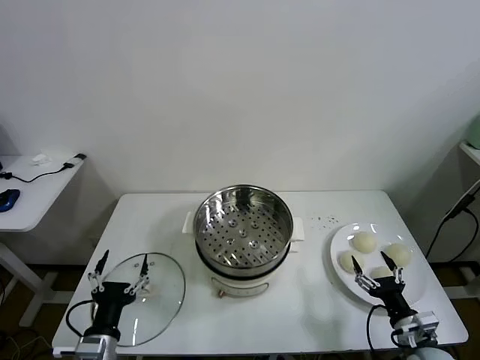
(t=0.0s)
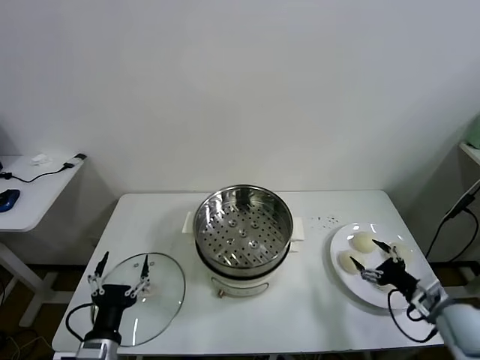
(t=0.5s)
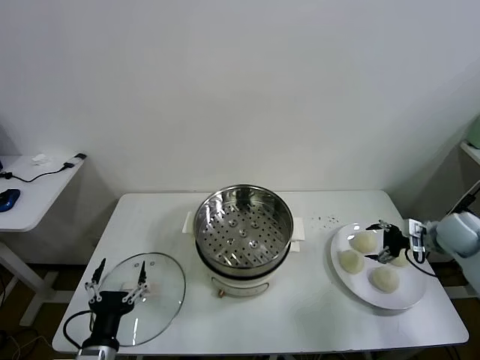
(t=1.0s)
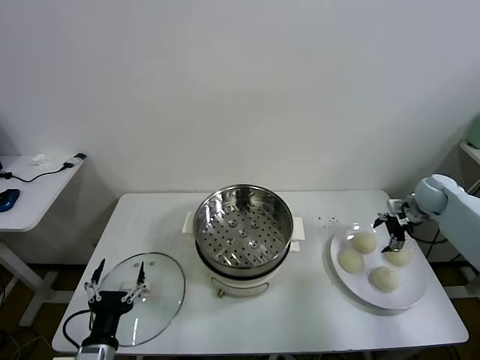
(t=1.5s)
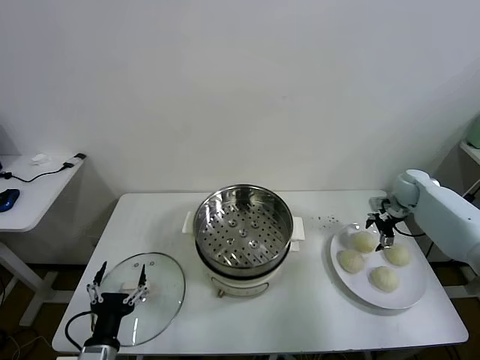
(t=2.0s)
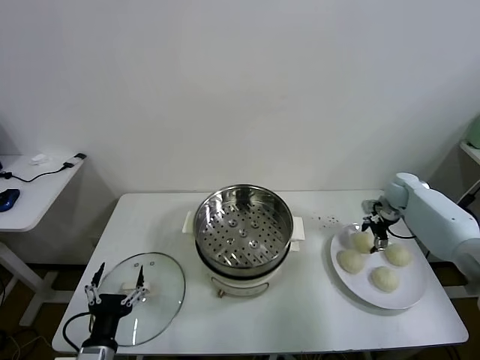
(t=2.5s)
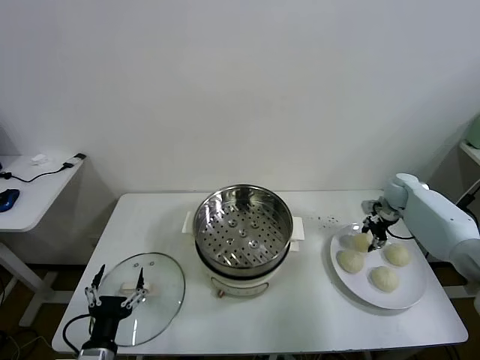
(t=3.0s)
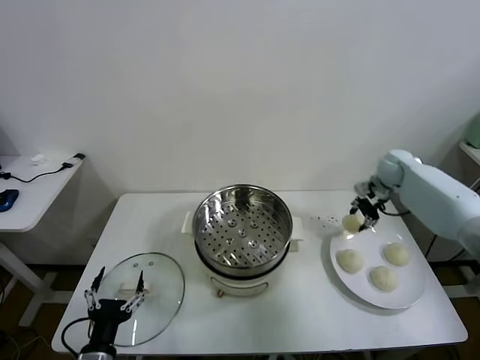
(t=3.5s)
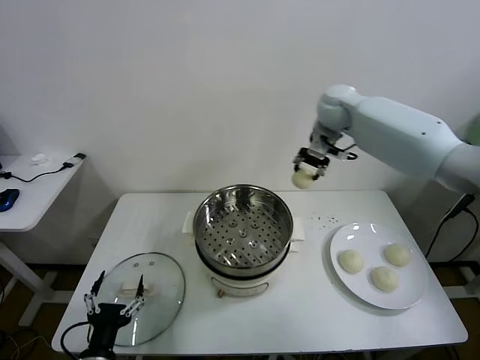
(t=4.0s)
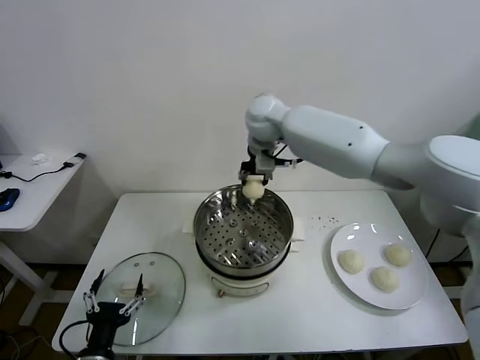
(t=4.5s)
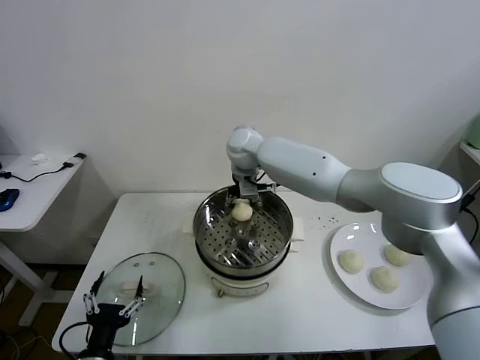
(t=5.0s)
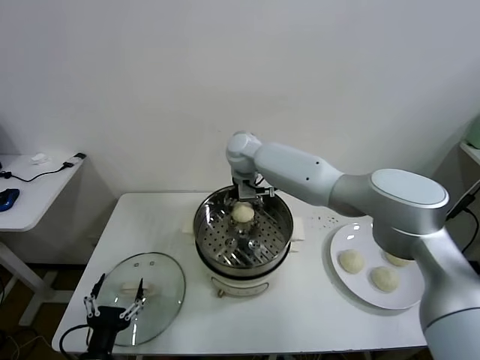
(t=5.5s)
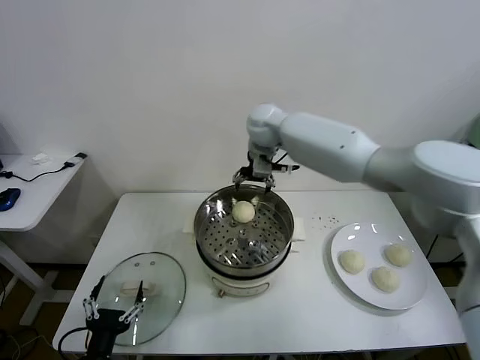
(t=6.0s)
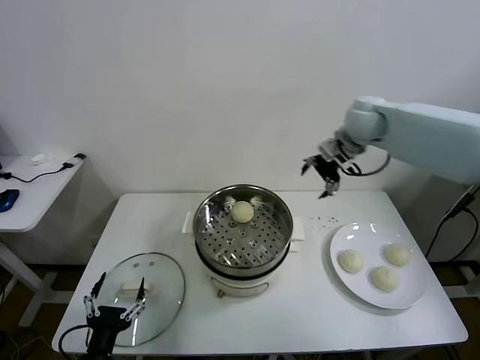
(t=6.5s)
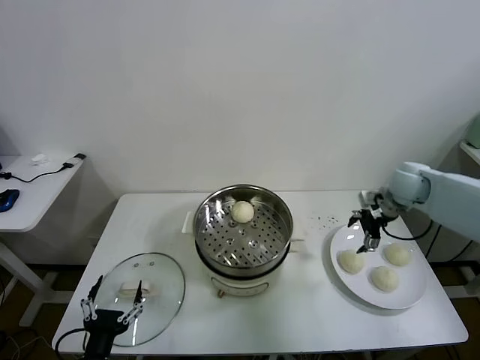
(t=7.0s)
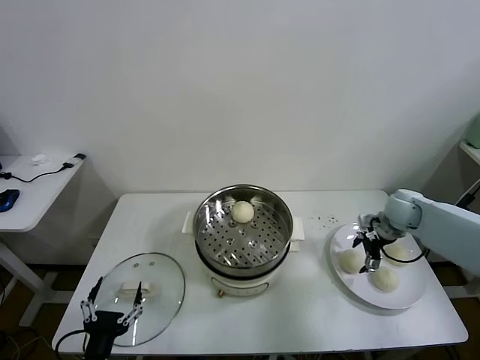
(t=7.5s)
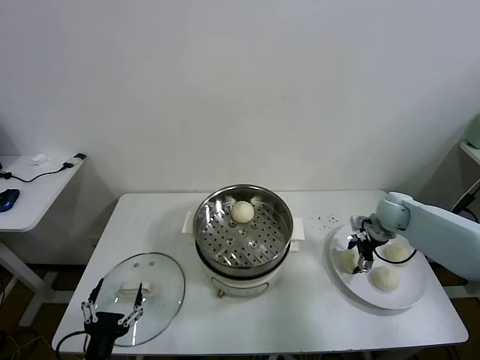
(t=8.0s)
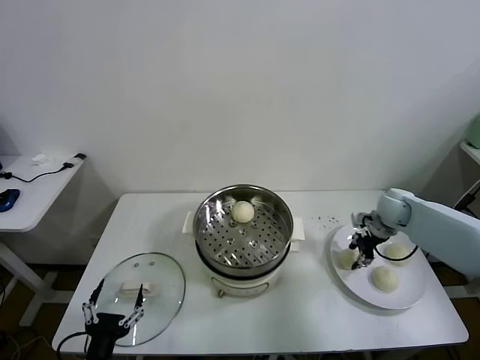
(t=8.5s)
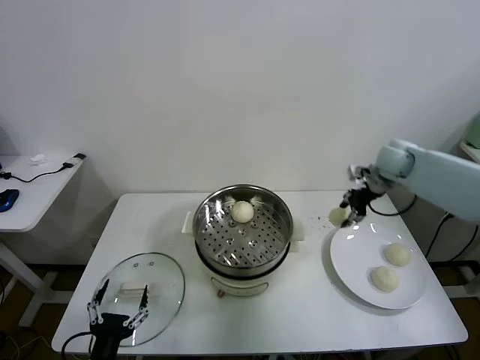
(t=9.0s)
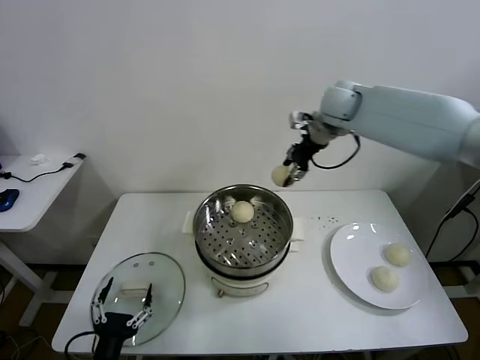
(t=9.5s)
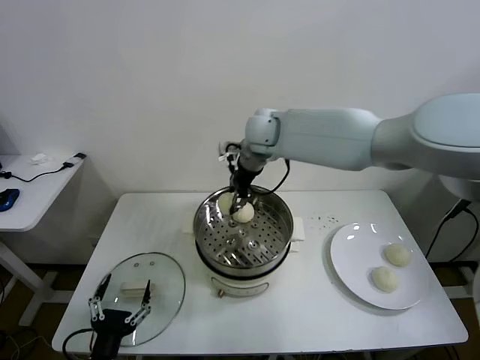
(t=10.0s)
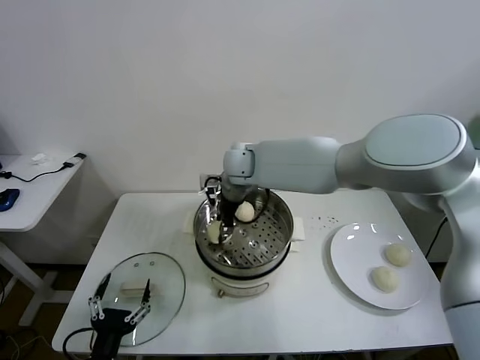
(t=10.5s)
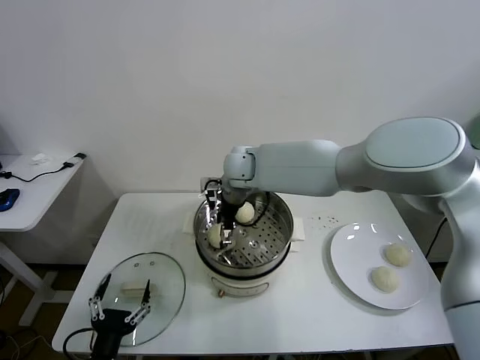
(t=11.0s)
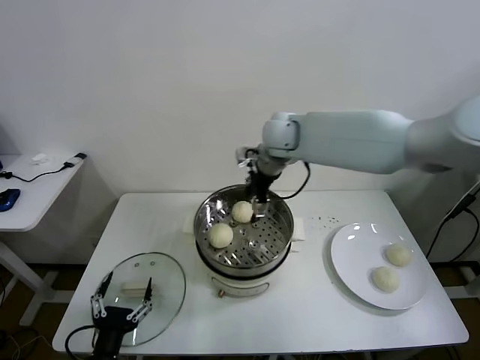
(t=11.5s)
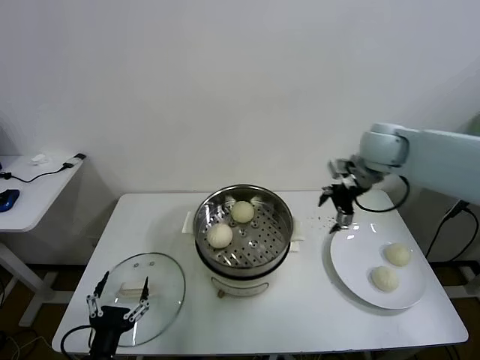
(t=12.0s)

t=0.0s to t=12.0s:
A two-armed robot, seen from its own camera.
Task of the whole recording: take steamed baozi put them in steamer.
Step, t=0.0s to t=2.5s: Grasp the baozi in the plate with right gripper.
Step, t=3.0s to t=5.5s: Place the baozi on the steamer with right gripper.
Step, t=6.0s to t=8.0s: Grasp the baozi in the plate with right gripper.
Step, t=8.5s to t=11.0s: Place the baozi on the steamer with right gripper.
t=2.0s to t=4.0s: The right gripper is displaced to the left and upward by some 35 cm, and closes up.
t=4.0s to t=6.0s: The right gripper goes roughly 15 cm to the left, and opens up.
t=6.0s to t=8.0s: The right gripper is displaced to the right and downward by some 40 cm.
t=8.0s to t=10.0s: The right gripper travels to the left and upward by about 40 cm, and closes up.
t=10.0s to t=12.0s: The right gripper heads to the right, covering about 25 cm, and opens up.

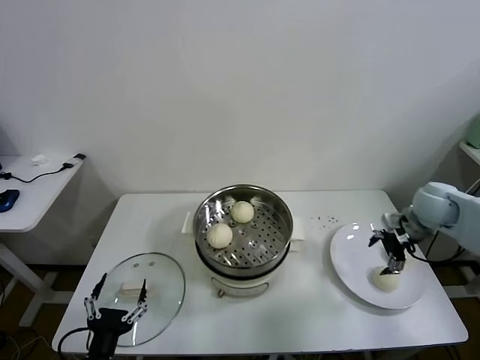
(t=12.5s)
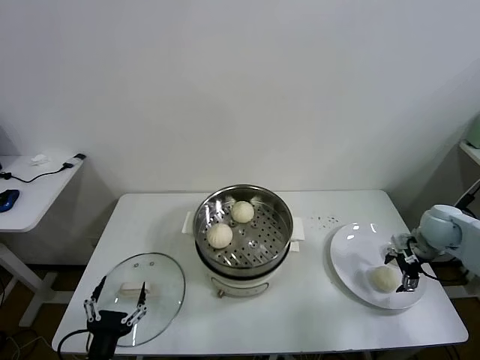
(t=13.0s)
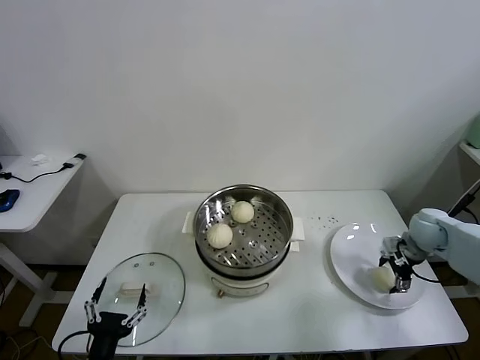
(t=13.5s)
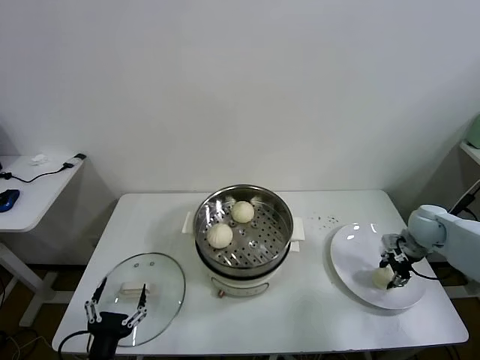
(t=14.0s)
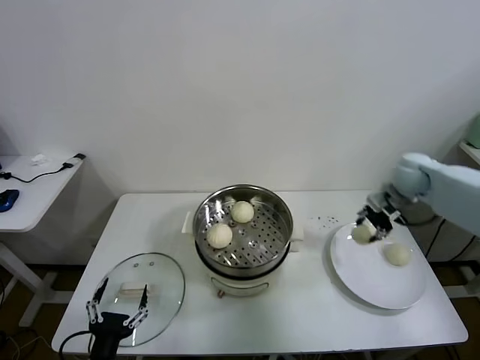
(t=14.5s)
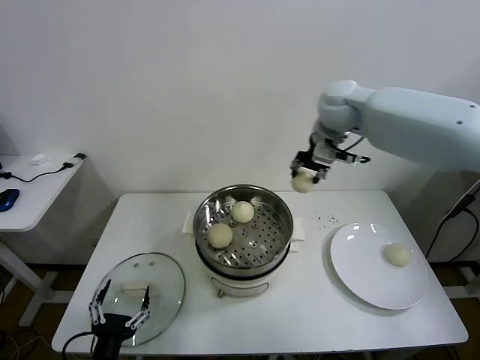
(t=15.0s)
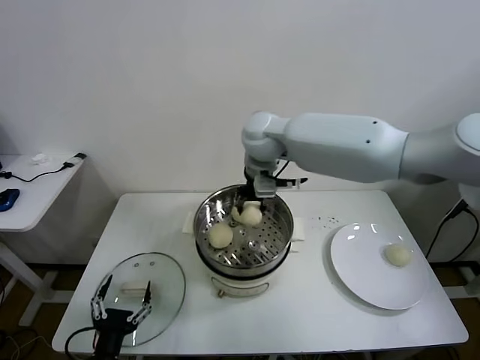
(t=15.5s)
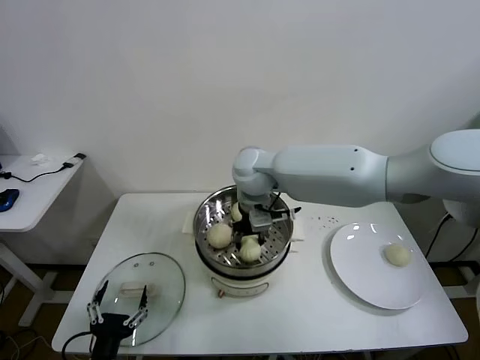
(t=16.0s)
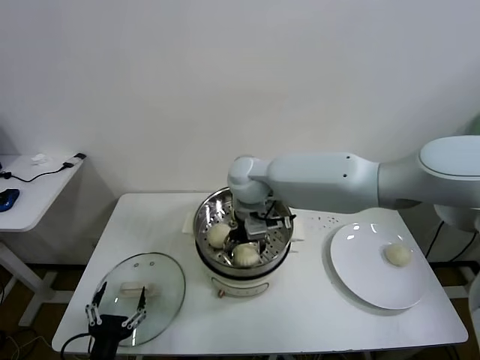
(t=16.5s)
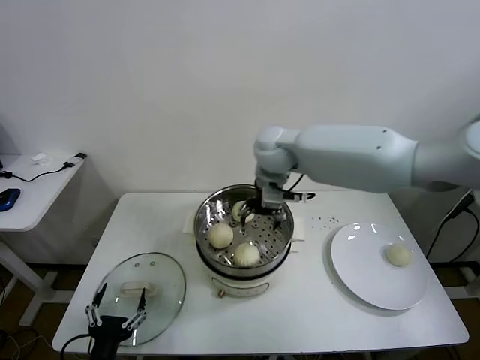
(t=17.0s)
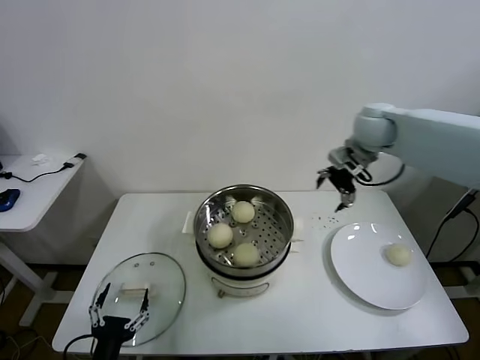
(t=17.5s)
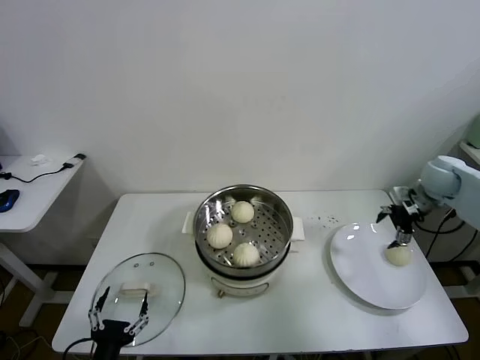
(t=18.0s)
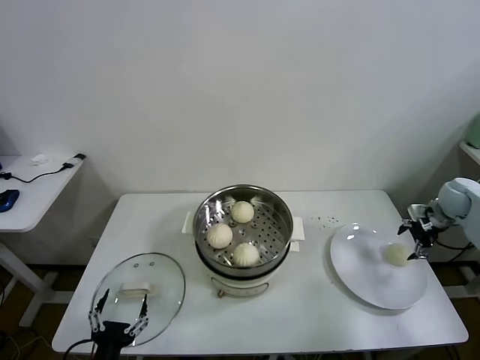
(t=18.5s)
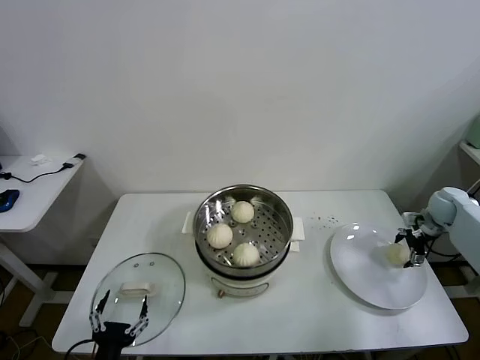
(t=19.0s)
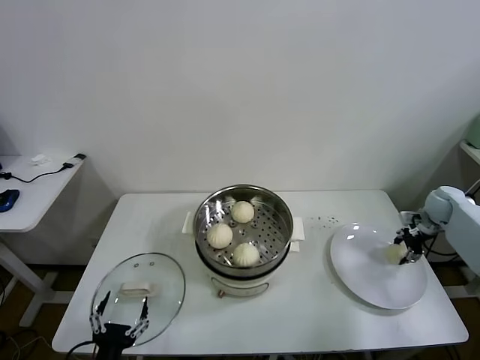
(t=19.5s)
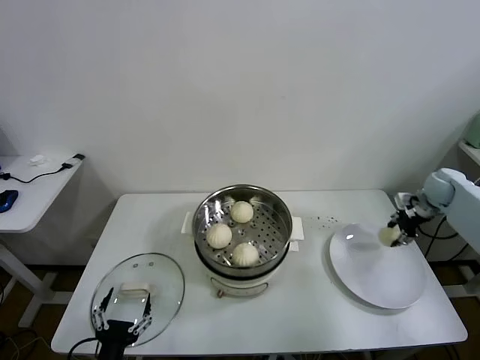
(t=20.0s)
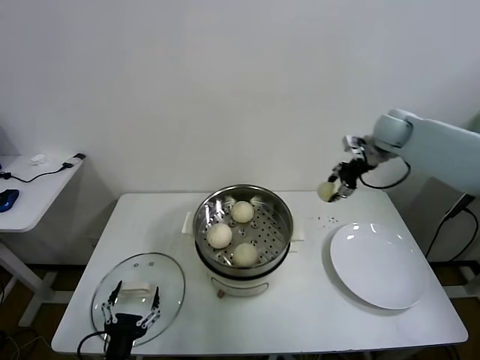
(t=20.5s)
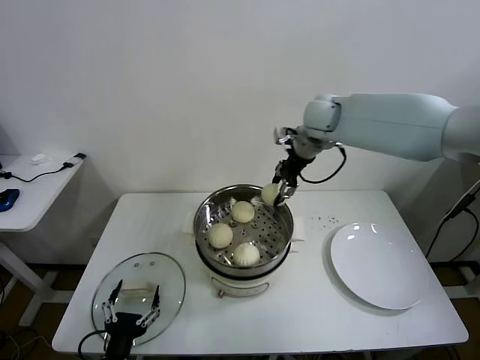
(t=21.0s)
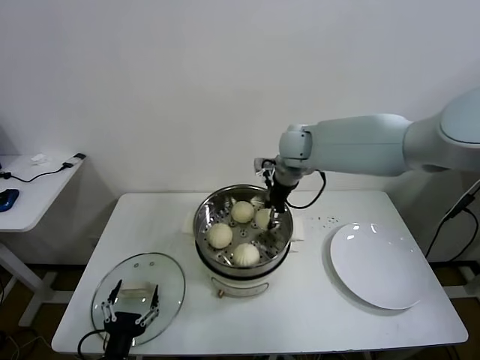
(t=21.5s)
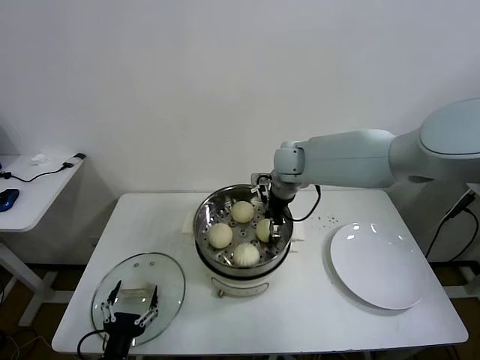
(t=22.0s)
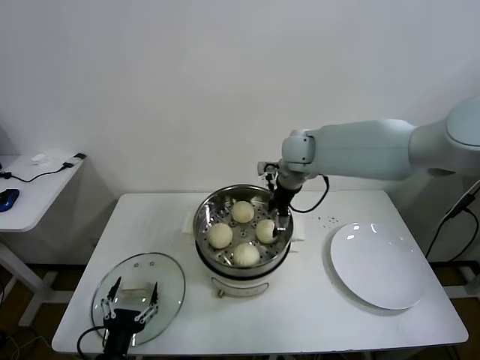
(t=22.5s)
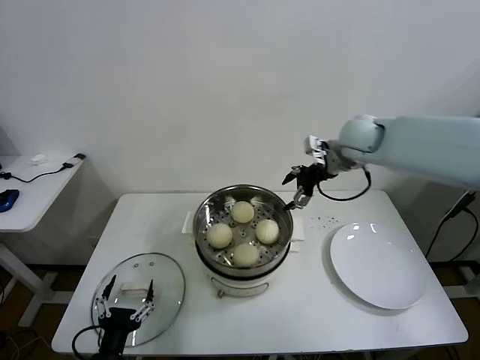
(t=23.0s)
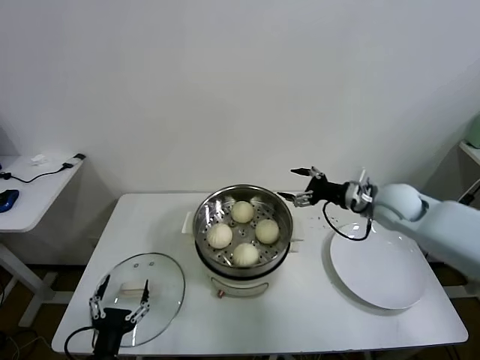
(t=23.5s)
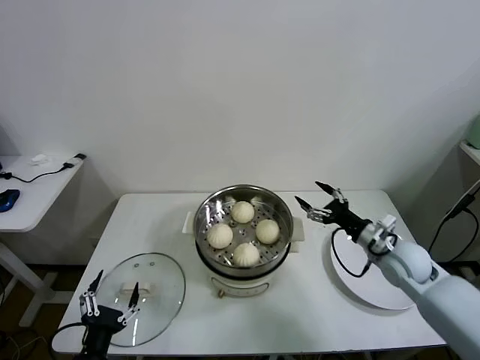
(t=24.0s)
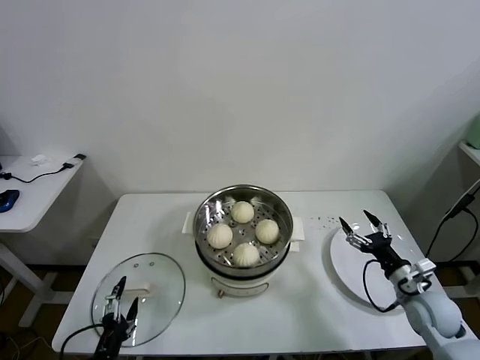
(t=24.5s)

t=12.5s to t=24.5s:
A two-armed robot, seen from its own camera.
Task of the whole recording: take steamed baozi put them in steamer.
Step, t=14.0s to t=16.5s: Place the baozi on the steamer with right gripper.
Step, t=17.0s to t=19.0s: Grasp the baozi in the plate with right gripper.
Step, t=20.0s to t=22.5s: Place the baozi on the steamer with right gripper.
t=12.5s to t=14.5s: The right gripper travels forward by about 5 cm, goes downward and returns, about 10 cm each way, and closes.
t=14.5s to t=16.5s: The right gripper travels to the left by some 40 cm, and opens its fingers.
t=16.5s to t=18.5s: The right gripper travels to the right by approximately 50 cm.
t=18.5s to t=20.5s: The right gripper goes approximately 25 cm to the left, upward and forward, and closes.
t=20.5s to t=22.5s: The right gripper travels to the left by approximately 25 cm, and opens.
t=22.5s to t=24.5s: The right gripper heads to the right, backward and downward, covering approximately 40 cm.

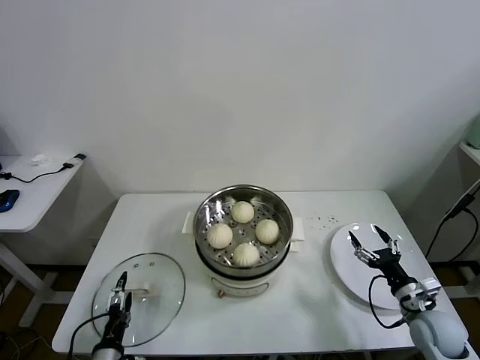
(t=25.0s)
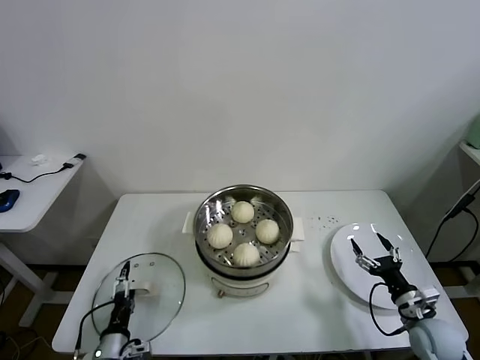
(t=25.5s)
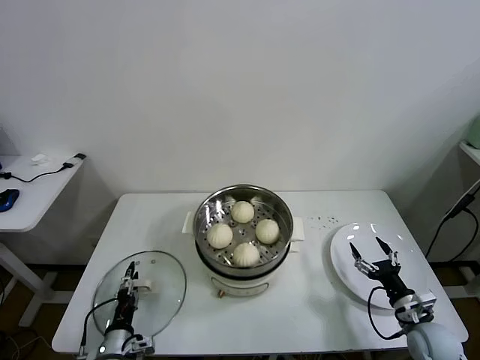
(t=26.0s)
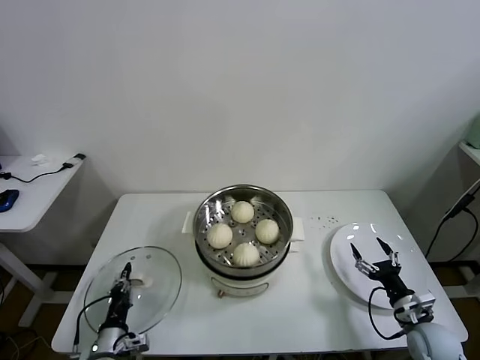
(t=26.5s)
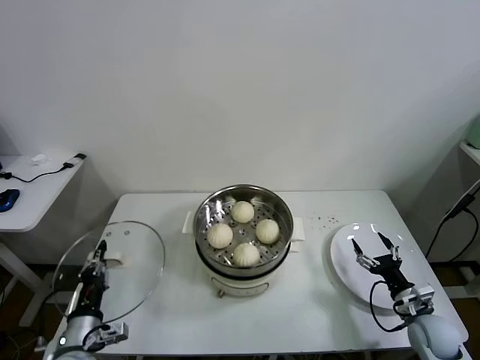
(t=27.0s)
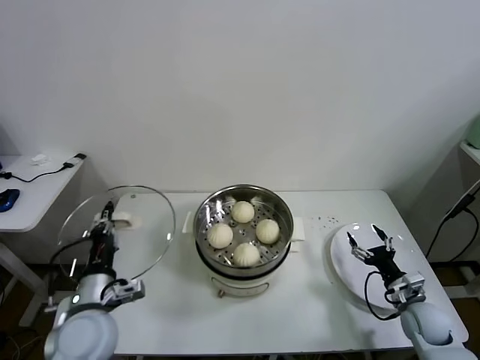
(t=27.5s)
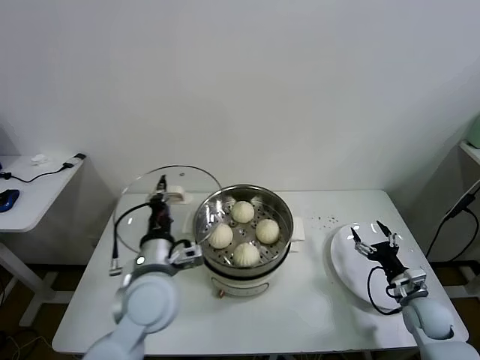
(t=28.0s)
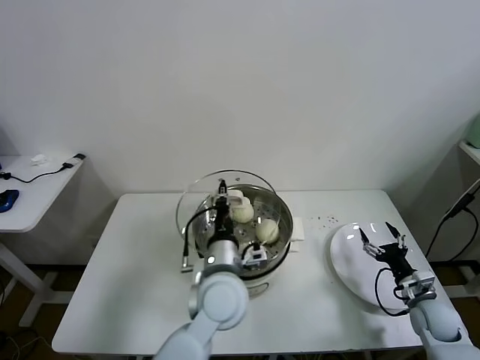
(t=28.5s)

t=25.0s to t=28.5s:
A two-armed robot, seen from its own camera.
Task of the whole recording: take steamed baozi put them in steamer.
t=25.0s to t=27.0s: The left gripper goes roughly 5 cm upward, and closes.
t=27.0s to t=28.5s: The left gripper goes some 30 cm to the right, upward and forward.
